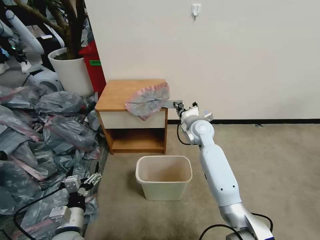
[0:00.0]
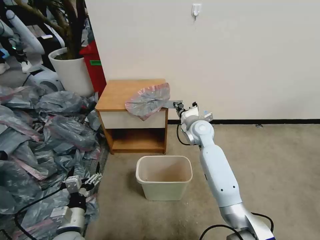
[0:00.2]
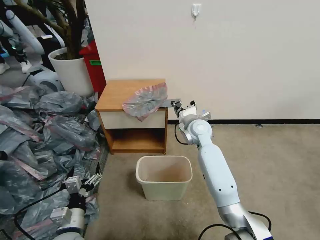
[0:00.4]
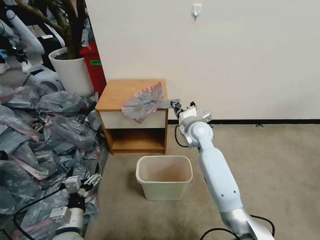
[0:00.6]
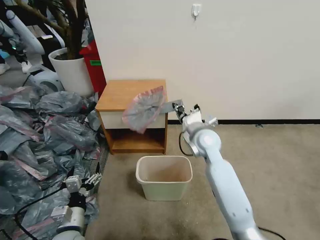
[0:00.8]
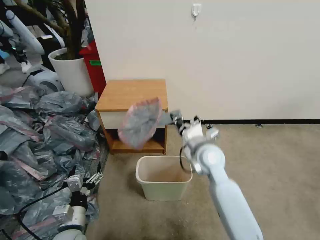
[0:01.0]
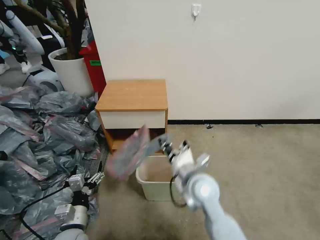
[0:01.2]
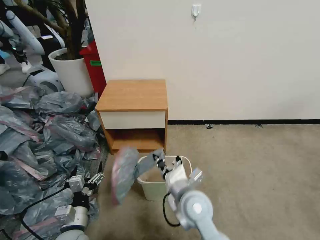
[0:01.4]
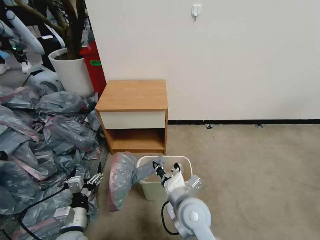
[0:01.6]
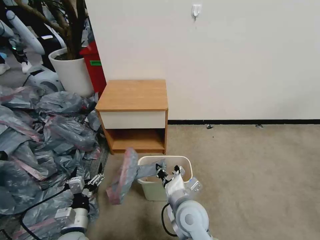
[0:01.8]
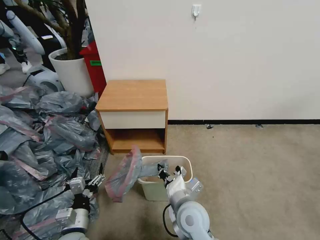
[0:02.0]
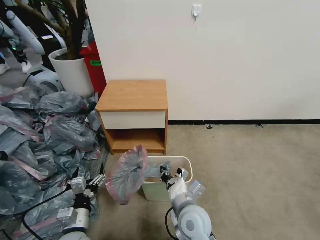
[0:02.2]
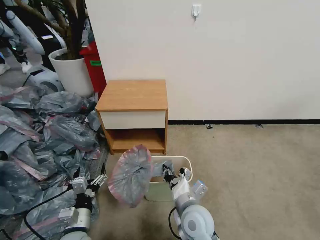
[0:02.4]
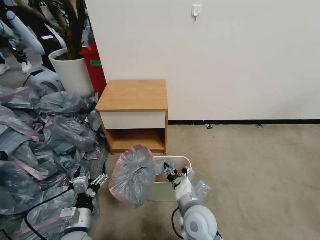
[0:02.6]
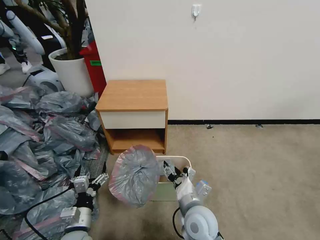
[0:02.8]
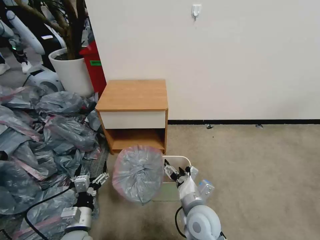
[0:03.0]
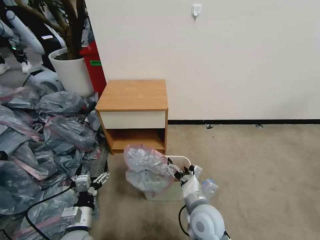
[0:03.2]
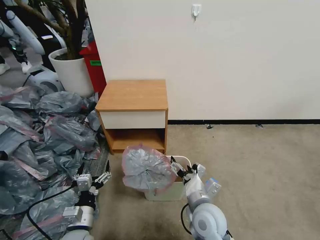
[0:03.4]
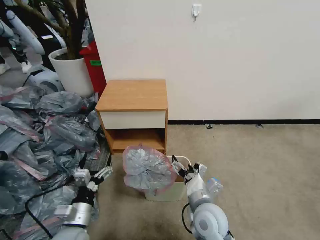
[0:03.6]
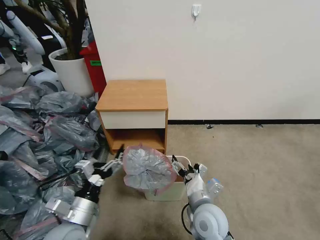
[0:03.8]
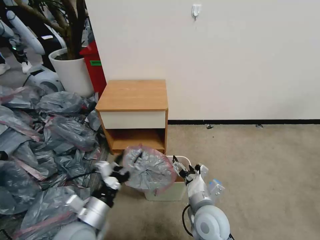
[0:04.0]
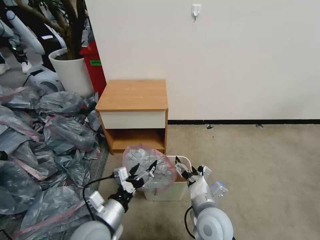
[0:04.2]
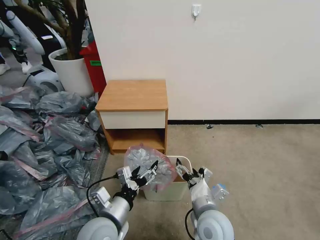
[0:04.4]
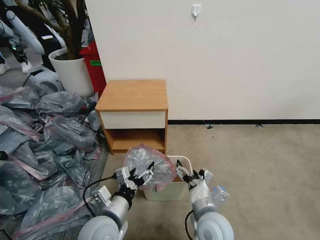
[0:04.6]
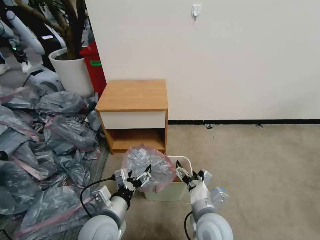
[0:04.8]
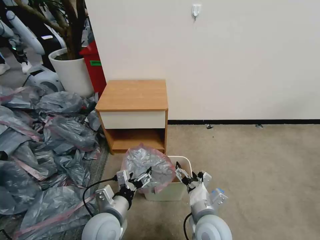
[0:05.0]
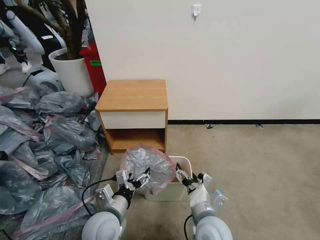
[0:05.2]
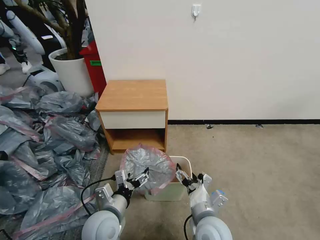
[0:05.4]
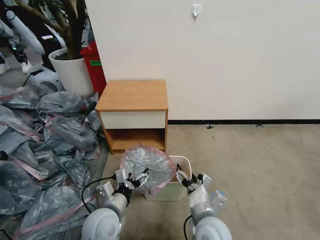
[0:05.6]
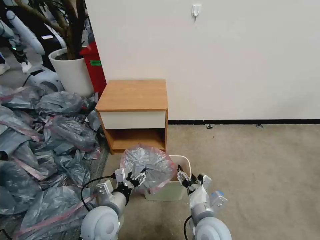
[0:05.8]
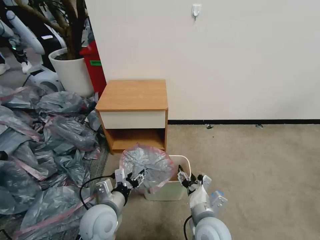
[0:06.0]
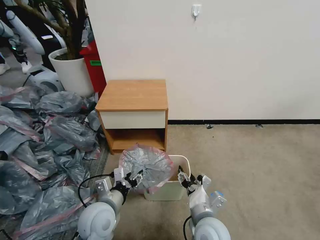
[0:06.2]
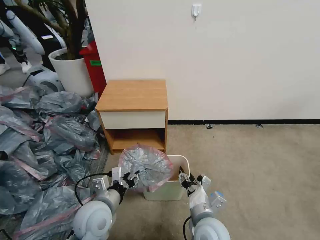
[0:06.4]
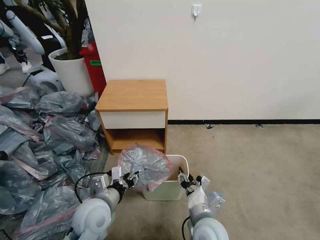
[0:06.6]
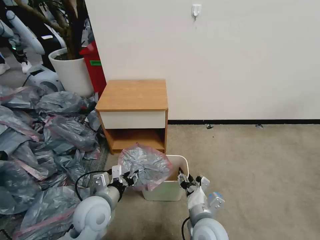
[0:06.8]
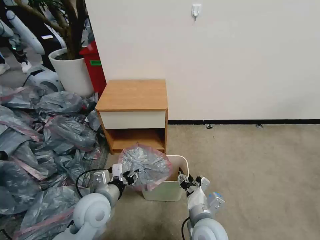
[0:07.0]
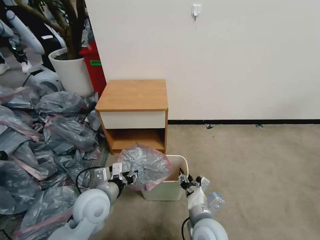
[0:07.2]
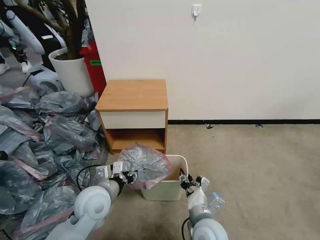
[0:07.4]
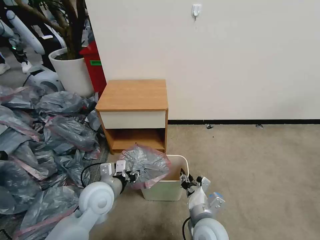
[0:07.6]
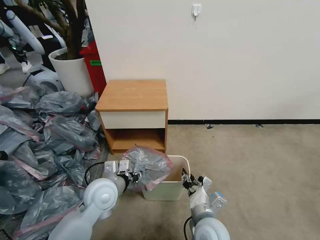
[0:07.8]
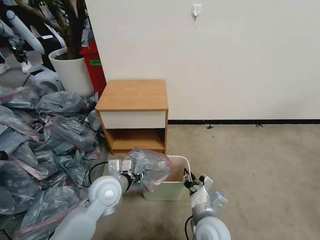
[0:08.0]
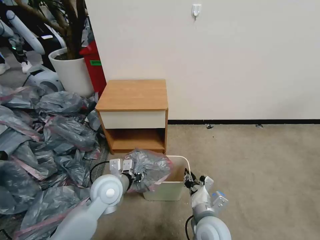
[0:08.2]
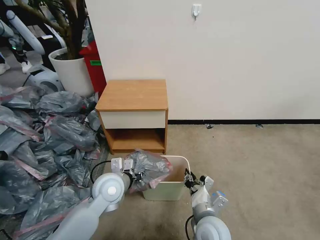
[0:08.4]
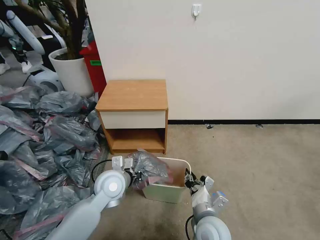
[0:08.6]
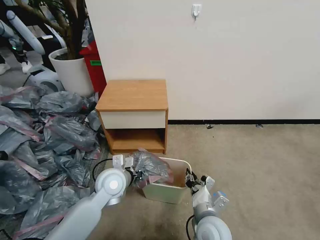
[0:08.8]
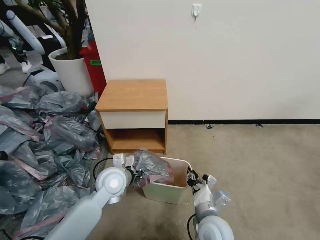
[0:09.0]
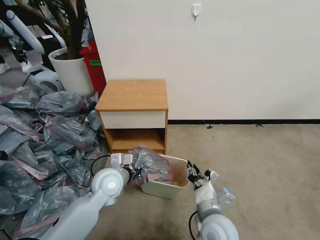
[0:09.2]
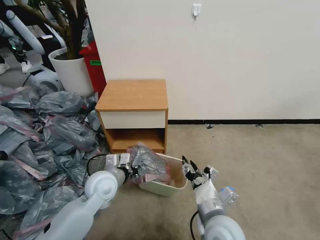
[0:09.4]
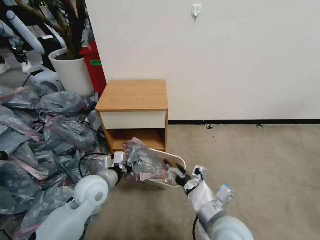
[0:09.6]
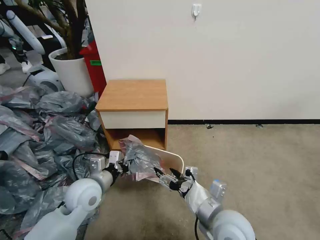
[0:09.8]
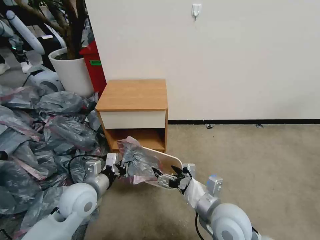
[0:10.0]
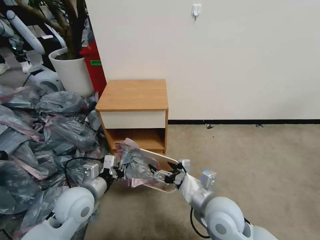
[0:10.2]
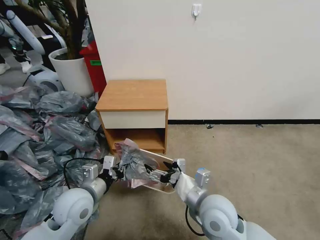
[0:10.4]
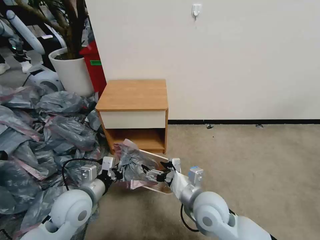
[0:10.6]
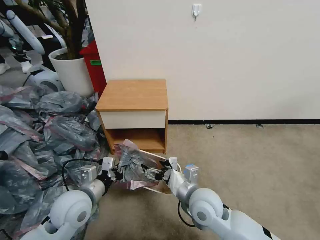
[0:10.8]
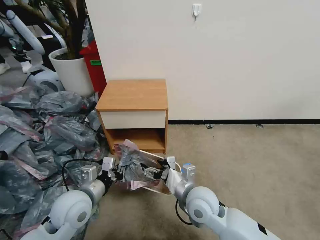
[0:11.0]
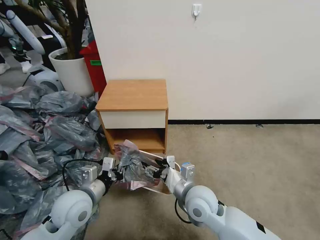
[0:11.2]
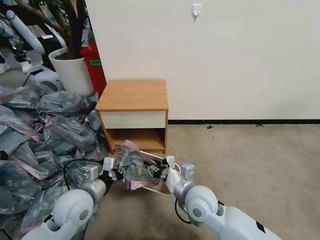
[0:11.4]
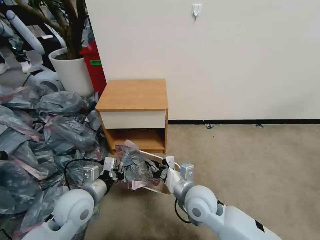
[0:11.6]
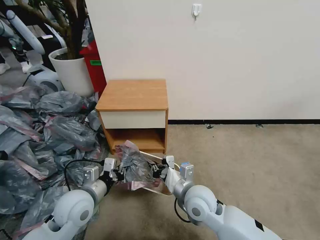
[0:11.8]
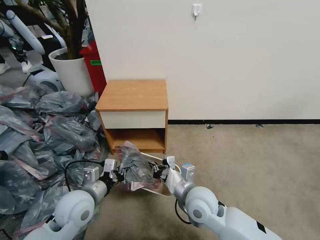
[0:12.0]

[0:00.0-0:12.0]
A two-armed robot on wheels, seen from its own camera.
Task of the whole recording: Pick up the garbage bag from the table and place it over the trash can.
0:00.0 to 0:01.6: The right gripper heads backward, covering roughly 25 cm.
0:01.6 to 0:03.0: The right gripper opens up.
0:03.0 to 0:04.4: The left gripper goes approximately 15 cm to the right and upward.
0:04.4 to 0:06.0: The left gripper shifts by approximately 5 cm, and closes up.
0:06.0 to 0:07.6: The left gripper goes about 5 cm forward.
0:07.6 to 0:09.0: The left gripper shifts about 5 cm forward, and closes.
0:09.0 to 0:10.4: The right gripper travels upward by approximately 5 cm, and opens. The left gripper is displaced to the left and backward by about 10 cm.
0:10.4 to 0:12.0: The right gripper shifts by approximately 5 cm, and closes up.

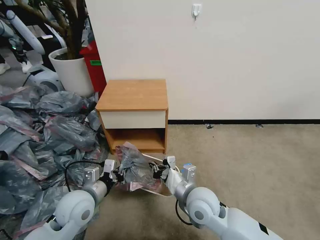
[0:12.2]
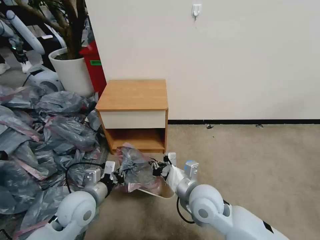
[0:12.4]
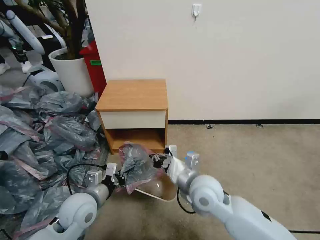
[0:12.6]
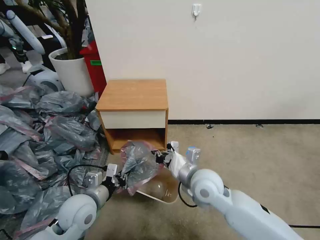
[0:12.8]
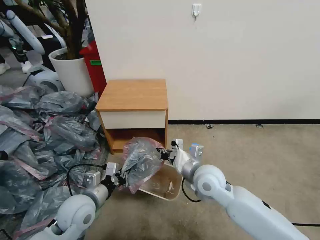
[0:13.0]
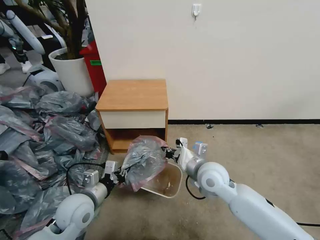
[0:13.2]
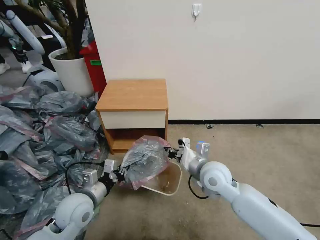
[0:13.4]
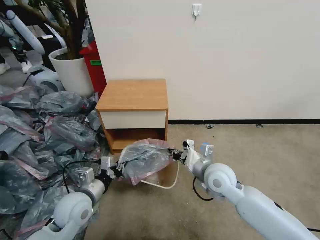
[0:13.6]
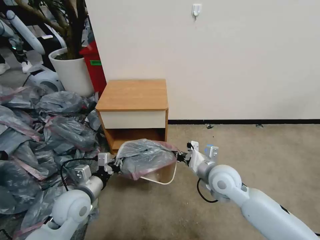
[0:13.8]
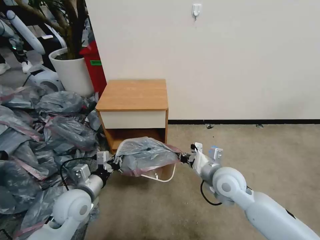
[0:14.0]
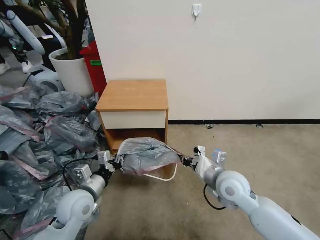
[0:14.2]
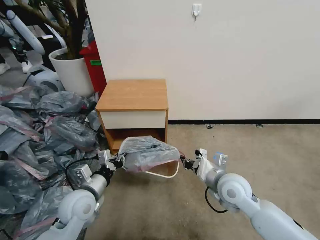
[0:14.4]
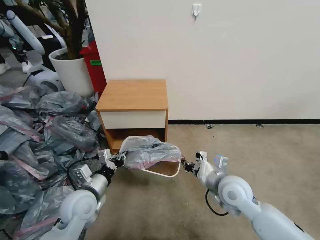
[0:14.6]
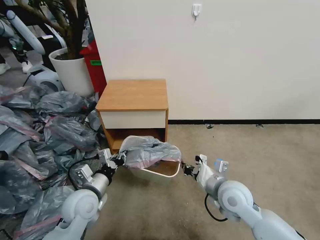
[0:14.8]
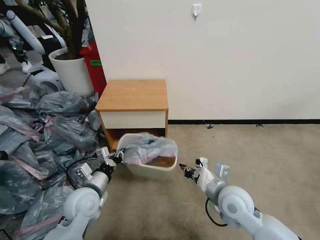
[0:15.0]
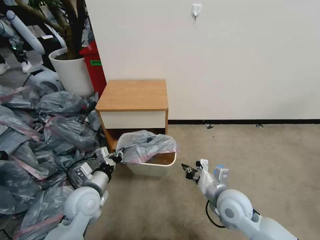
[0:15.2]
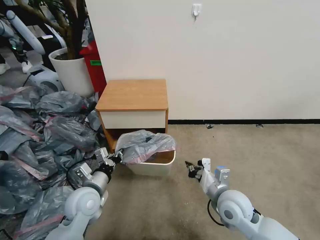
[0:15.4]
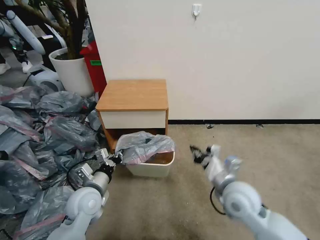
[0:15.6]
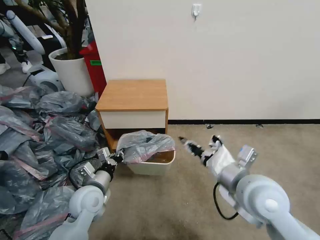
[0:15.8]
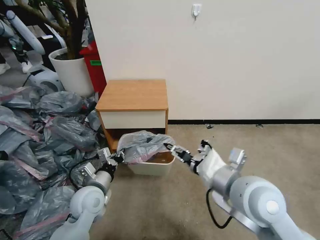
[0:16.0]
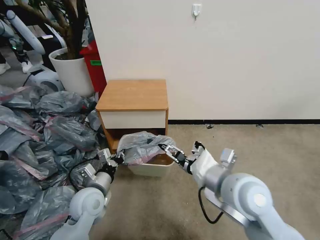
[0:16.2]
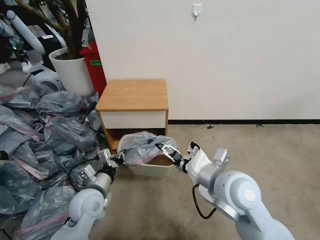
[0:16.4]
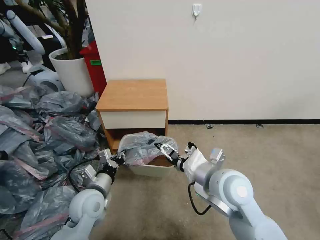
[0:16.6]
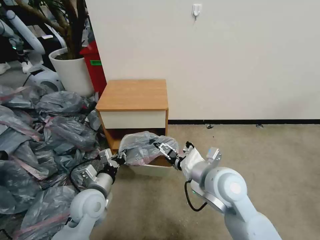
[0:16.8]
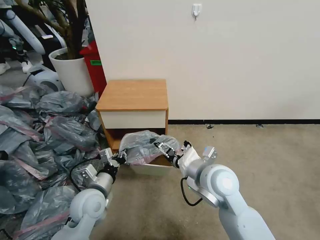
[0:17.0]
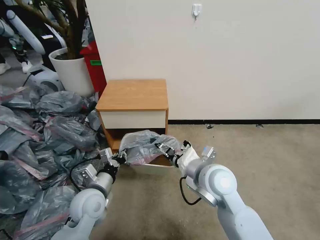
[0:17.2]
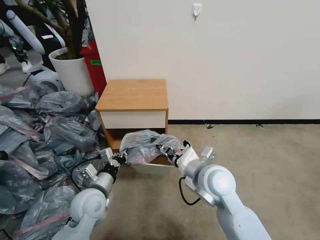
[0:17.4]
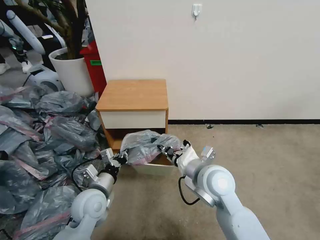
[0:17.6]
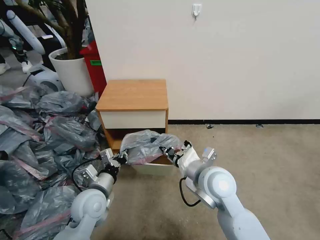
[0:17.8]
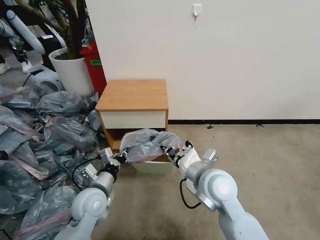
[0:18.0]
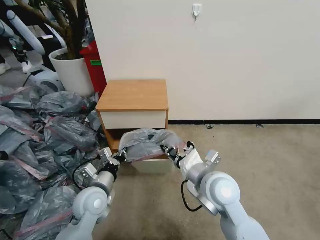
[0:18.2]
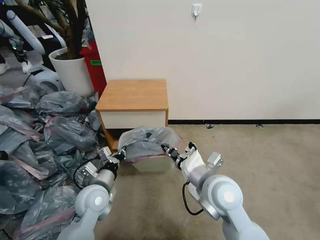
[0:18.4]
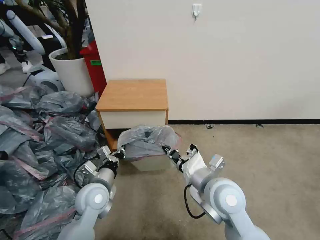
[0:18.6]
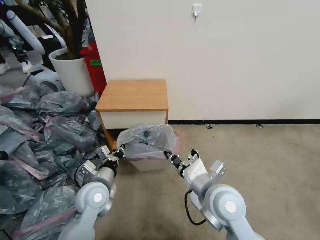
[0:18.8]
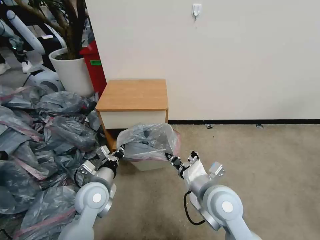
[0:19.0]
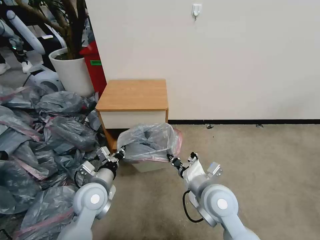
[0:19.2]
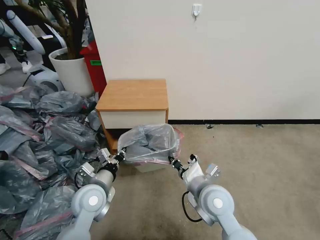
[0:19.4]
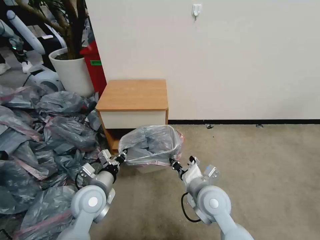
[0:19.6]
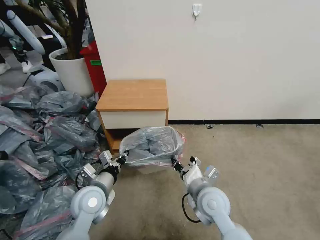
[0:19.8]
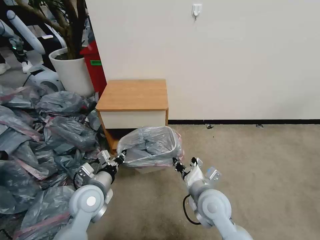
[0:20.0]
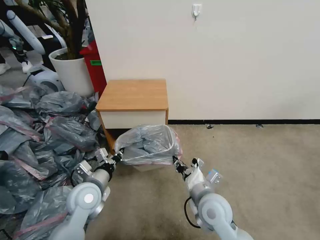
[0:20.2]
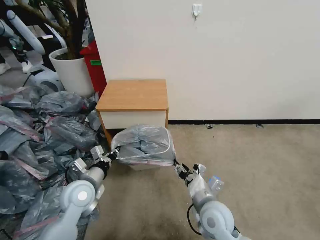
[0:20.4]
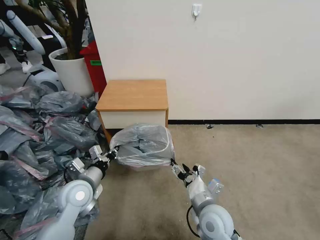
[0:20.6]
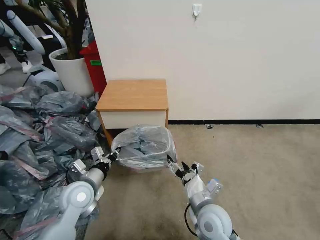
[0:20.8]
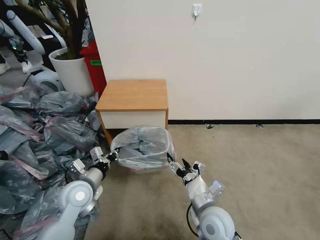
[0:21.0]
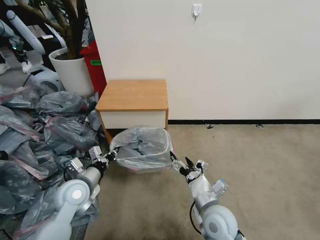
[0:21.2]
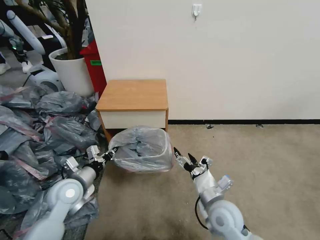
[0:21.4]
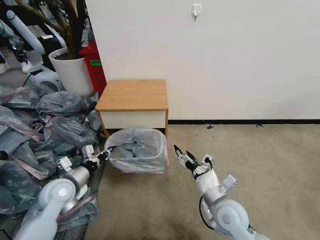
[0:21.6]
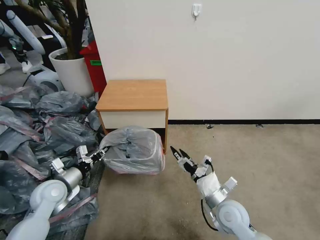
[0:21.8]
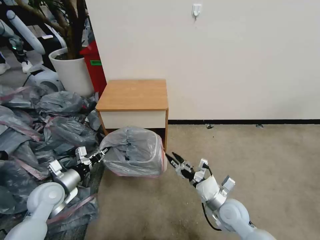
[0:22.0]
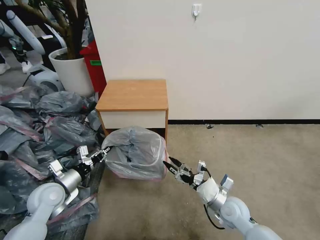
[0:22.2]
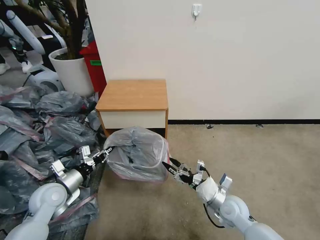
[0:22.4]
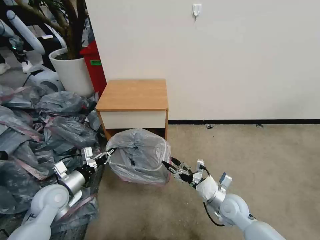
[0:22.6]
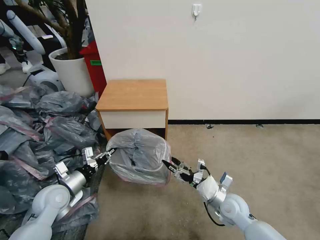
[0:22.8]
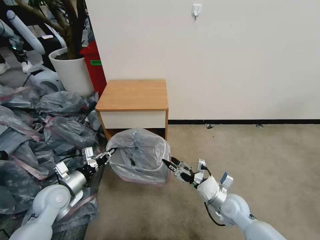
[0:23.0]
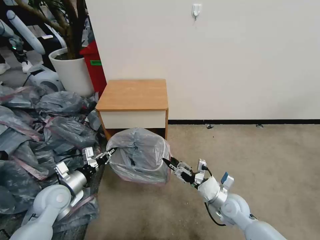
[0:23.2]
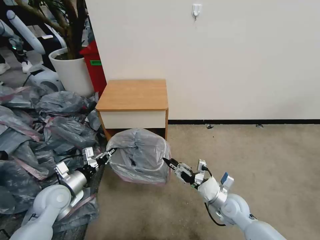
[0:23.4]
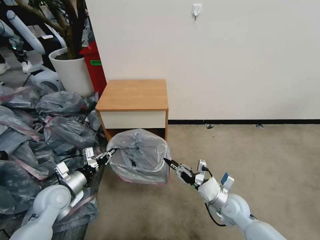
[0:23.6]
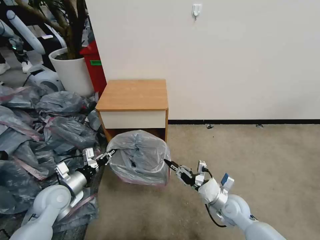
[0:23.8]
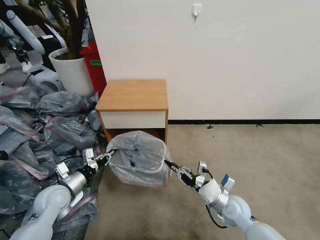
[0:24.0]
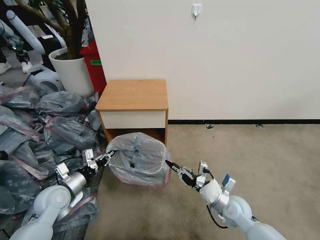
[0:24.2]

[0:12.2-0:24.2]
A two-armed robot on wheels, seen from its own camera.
Task of the whole recording: Pick up the garbage bag from the table and place it over the trash can.
0:12.2 to 0:13.8: The right gripper is displaced to the right and forward by roughly 10 cm.
0:13.8 to 0:15.2: The right gripper heads backward, covering about 5 cm.
0:15.2 to 0:16.6: The right gripper is displaced upward and to the left by approximately 15 cm, and opens.
0:16.6 to 0:18.2: The right gripper closes.
0:18.2 to 0:19.8: The right gripper travels downward by approximately 10 cm.
0:19.8 to 0:21.2: The right gripper moves roughly 5 cm, and opens. The left gripper shifts approximately 5 cm to the left.
0:21.2 to 0:22.6: The right gripper heads to the right, downward and forward, covering roughly 10 cm. The left gripper shifts some 5 cm to the left.
0:22.6 to 0:24.2: The right gripper closes its fingers.
